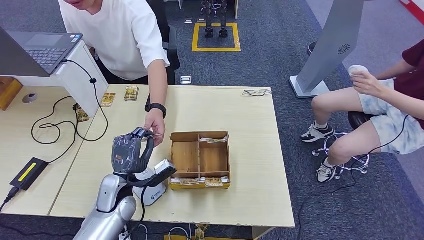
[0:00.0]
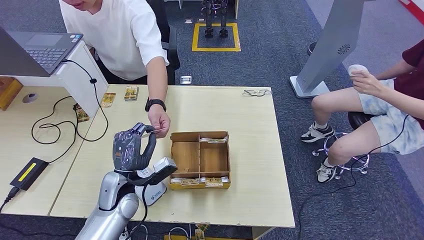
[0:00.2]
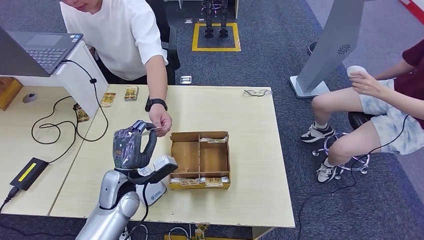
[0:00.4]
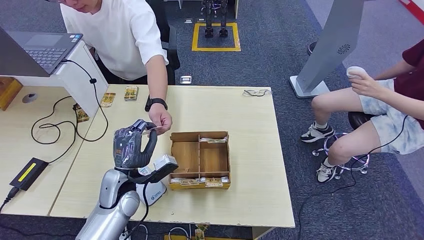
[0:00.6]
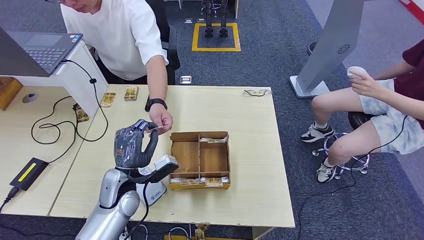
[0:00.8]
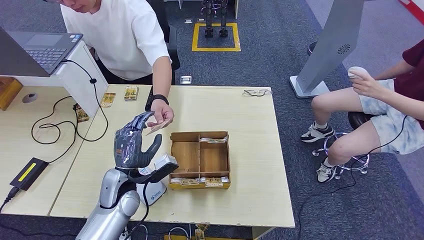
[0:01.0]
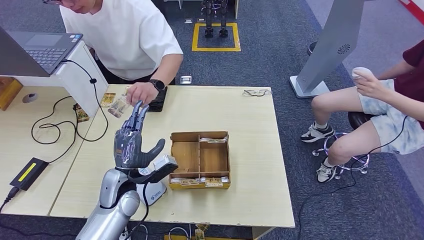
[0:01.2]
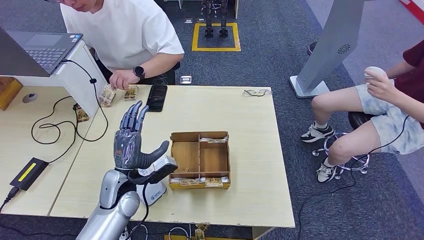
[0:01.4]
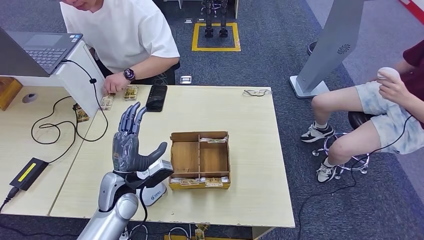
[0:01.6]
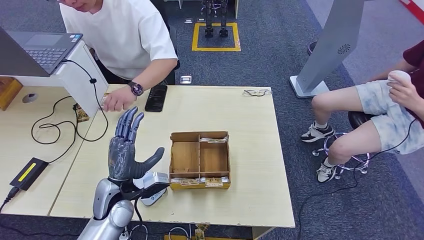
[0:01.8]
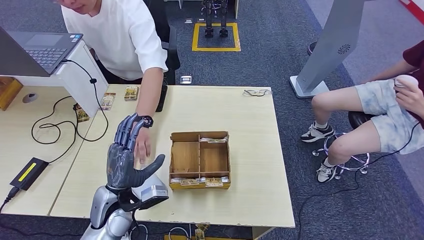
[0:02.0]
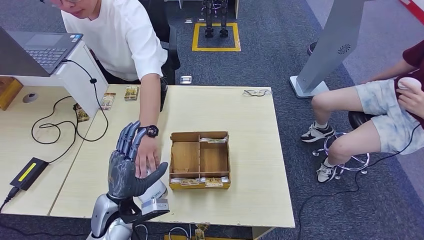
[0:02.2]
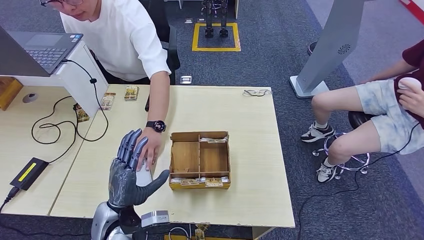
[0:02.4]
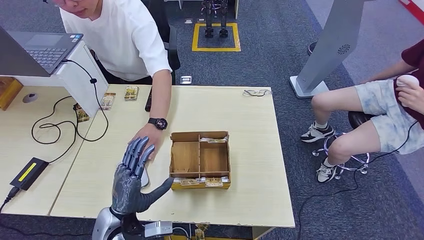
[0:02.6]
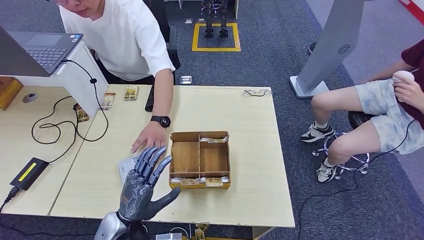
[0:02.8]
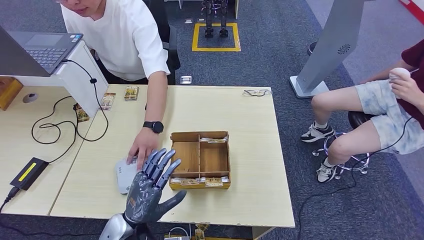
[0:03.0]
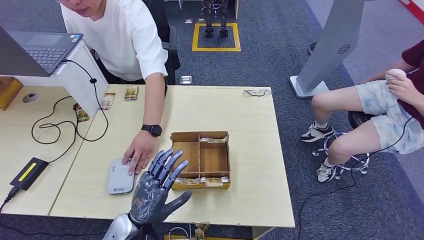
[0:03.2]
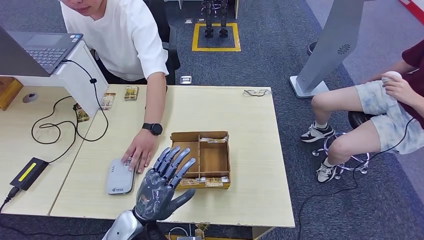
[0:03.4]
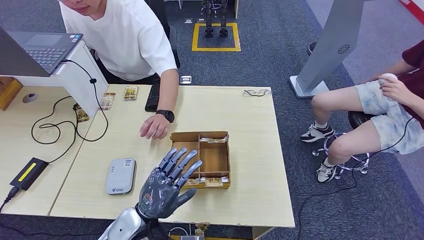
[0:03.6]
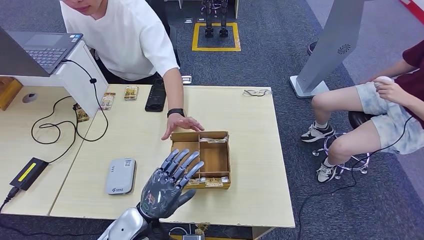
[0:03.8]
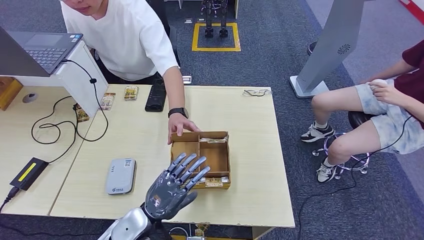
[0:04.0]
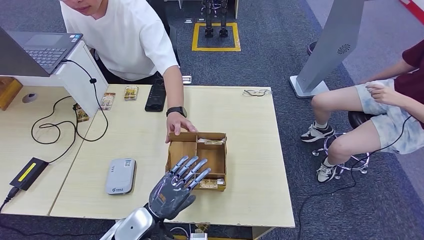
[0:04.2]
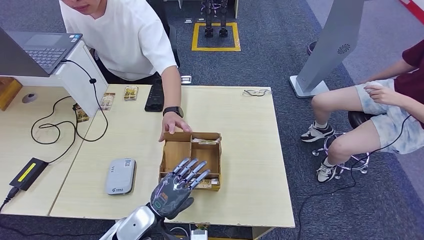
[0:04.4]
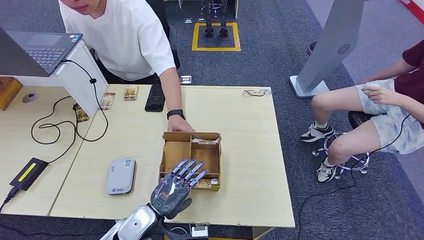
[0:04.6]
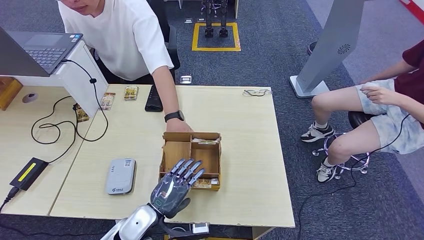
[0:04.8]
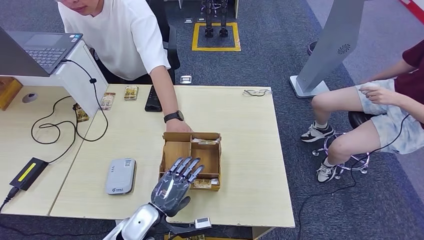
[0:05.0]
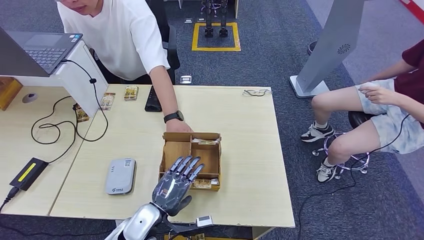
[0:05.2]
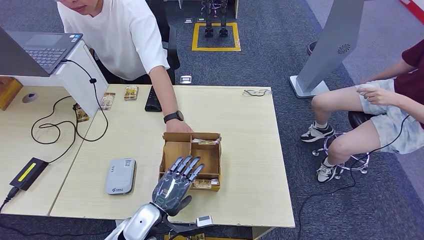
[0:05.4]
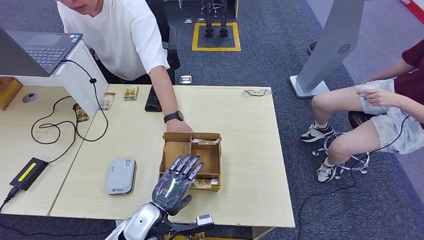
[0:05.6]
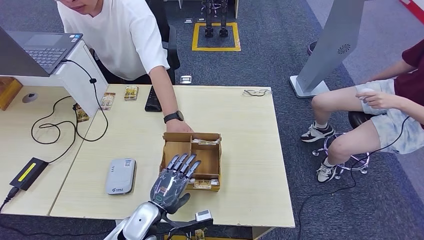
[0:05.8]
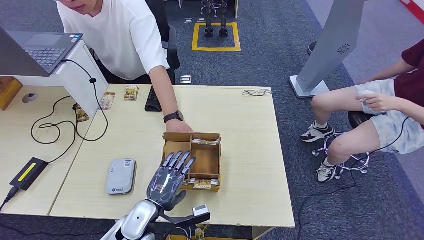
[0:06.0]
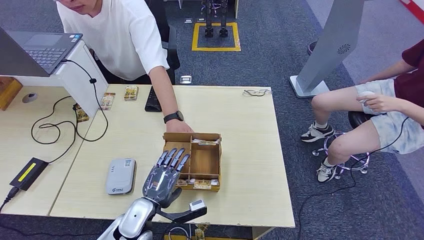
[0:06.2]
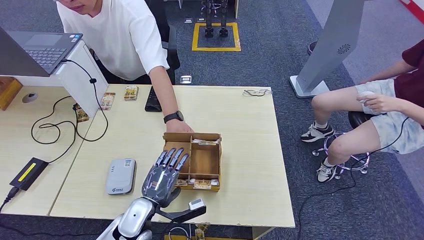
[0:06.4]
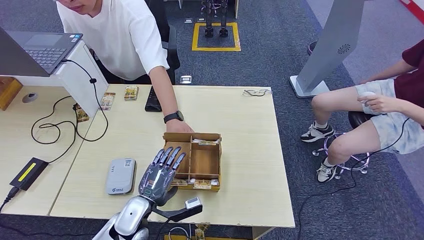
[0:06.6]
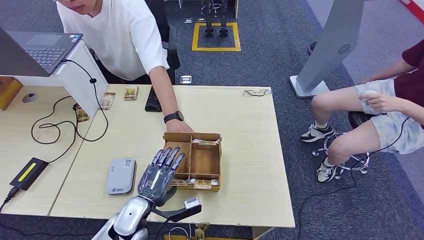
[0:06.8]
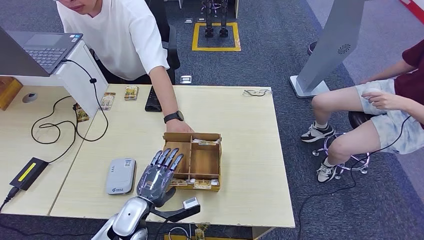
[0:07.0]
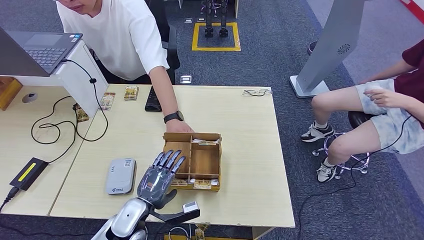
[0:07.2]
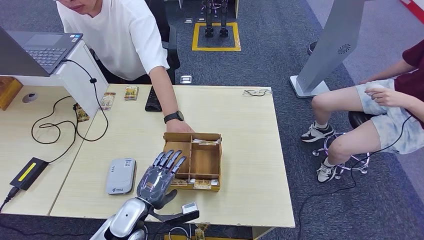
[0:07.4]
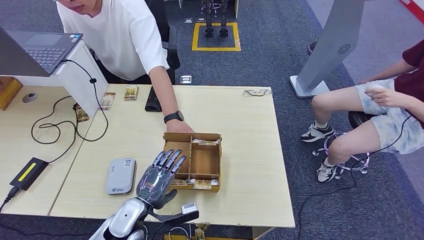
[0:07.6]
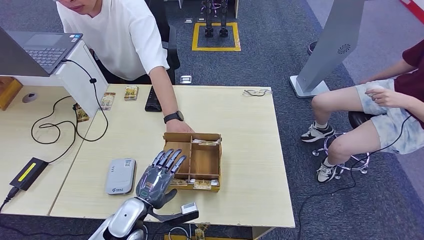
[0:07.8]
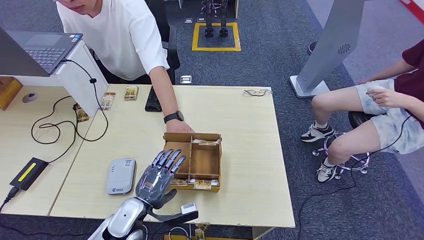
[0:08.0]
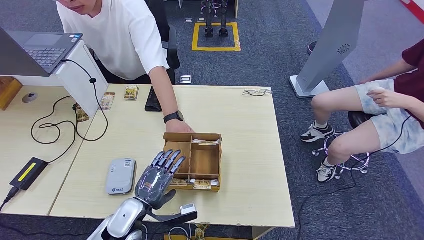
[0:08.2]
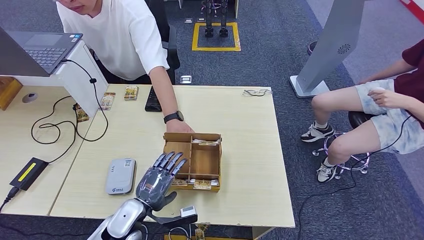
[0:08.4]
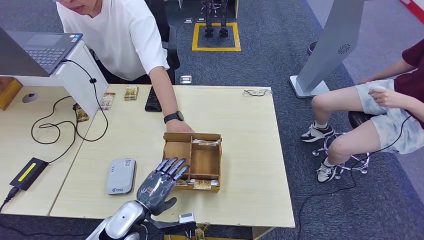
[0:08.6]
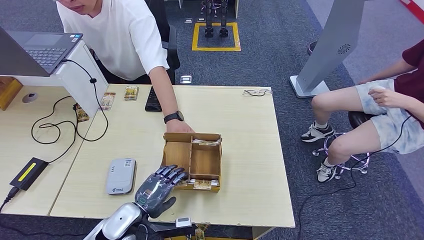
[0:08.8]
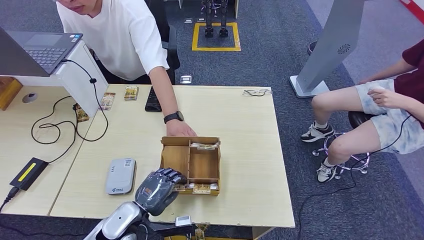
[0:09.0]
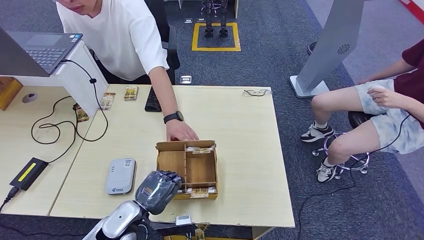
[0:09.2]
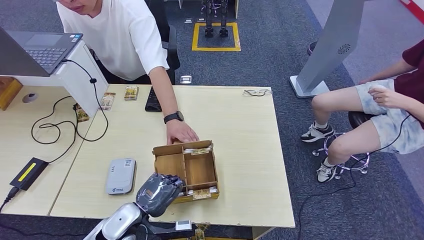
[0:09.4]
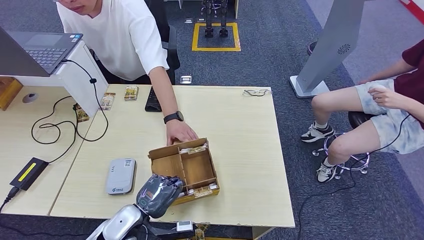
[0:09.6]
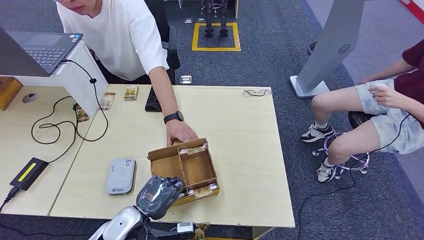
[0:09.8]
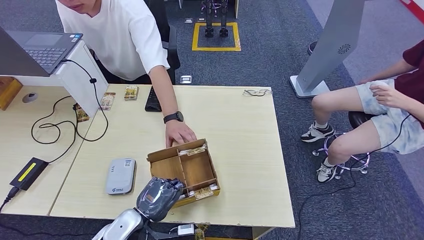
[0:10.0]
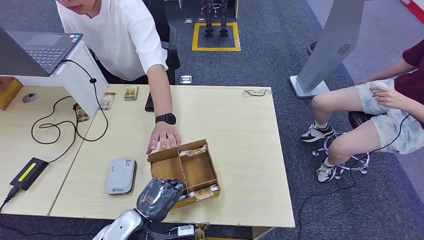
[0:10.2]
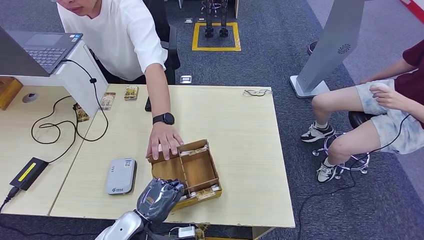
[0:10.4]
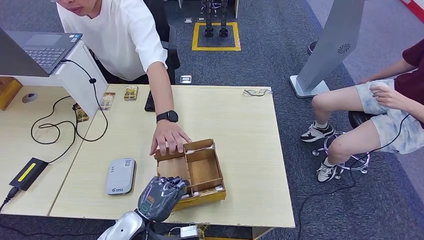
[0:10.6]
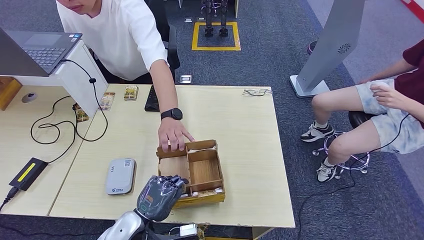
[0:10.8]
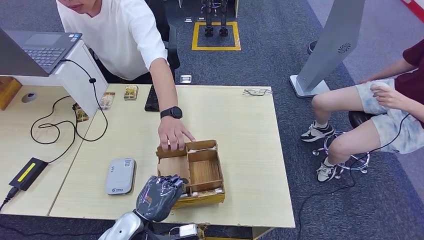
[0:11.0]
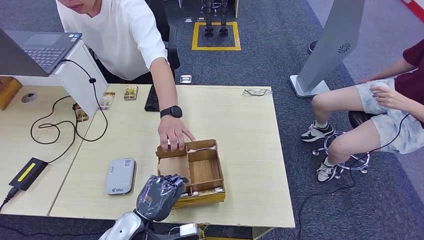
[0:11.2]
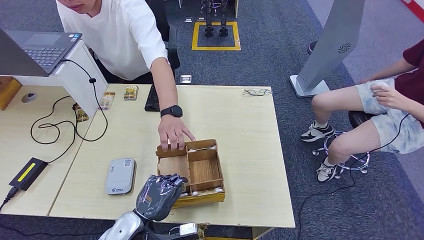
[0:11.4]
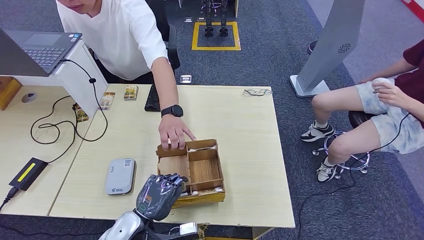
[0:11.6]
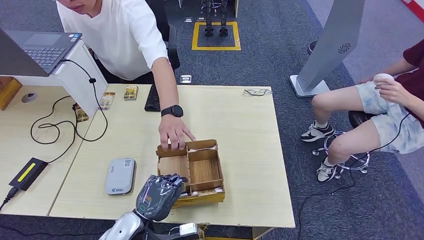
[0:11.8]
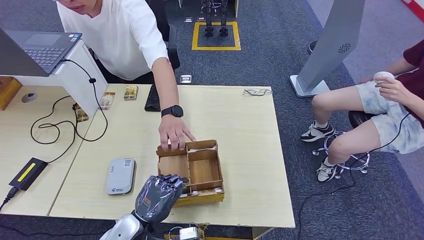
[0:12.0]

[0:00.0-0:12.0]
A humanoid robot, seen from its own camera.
0:00.0 to 0:01.6: The hands make only small movements.
0:01.6 to 0:03.0: The left hand moves backward, approximately 10 cm.
0:04.4 to 0:06.0: The hands make only small movements.
0:06.0 to 0:12.0: The hands make only small movements.

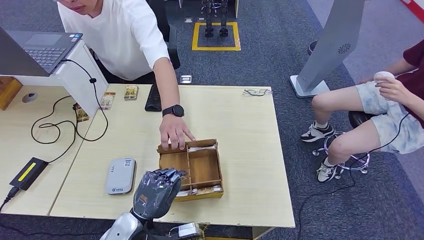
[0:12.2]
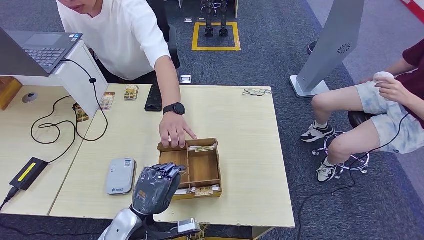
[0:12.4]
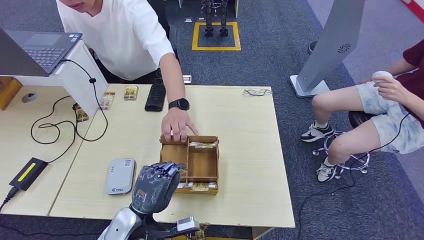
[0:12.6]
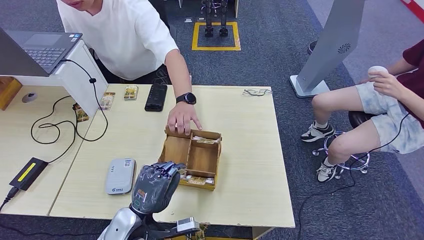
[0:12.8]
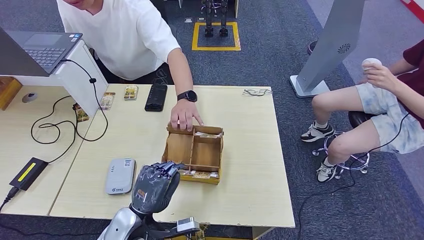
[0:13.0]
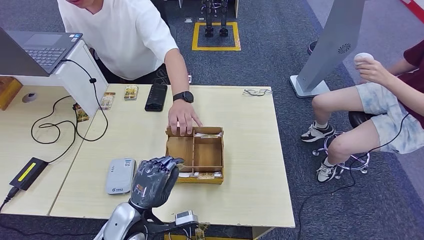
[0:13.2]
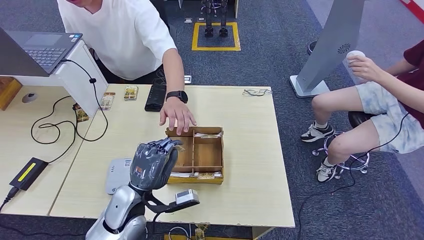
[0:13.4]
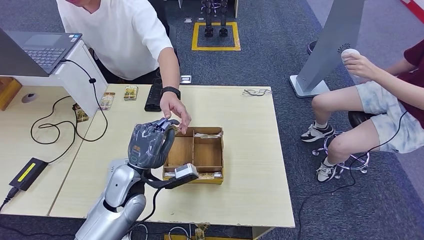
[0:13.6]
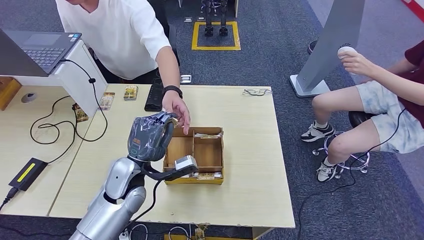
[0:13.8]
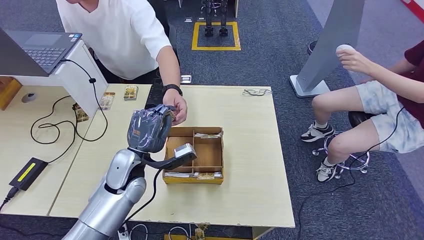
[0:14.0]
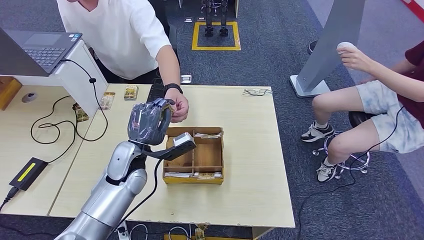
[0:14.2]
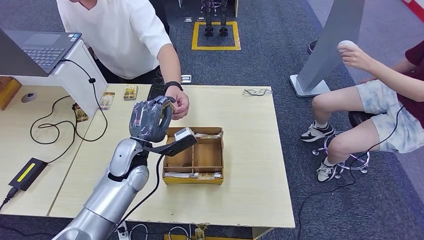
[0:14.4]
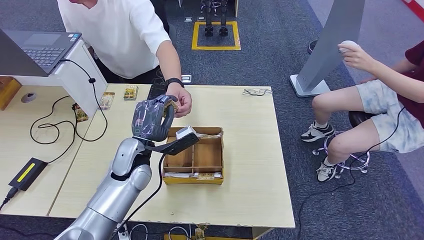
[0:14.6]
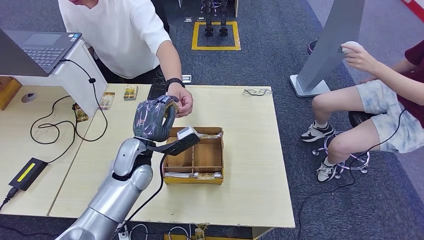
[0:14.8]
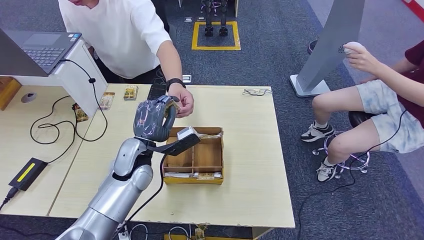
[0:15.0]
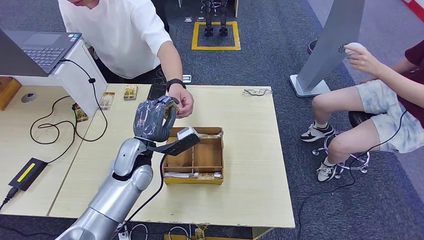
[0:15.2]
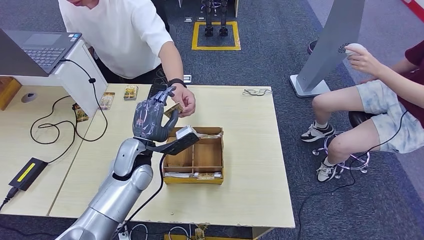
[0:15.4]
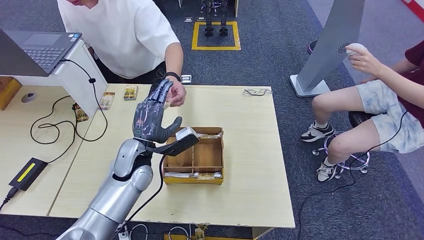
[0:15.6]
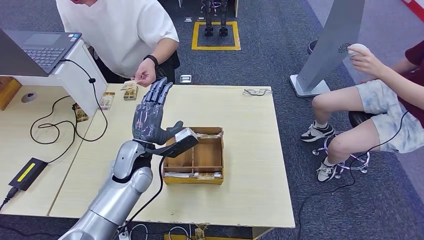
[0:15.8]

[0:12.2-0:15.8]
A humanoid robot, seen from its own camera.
Step, 0:12.4 to 0:15.8: Hand the room key to the person.
0:12.2 to 0:14.0: The left hand moves forward and upward, about 15 cm.
0:14.0 to 0:15.8: The hands stay close to where they were, moving slightly.
